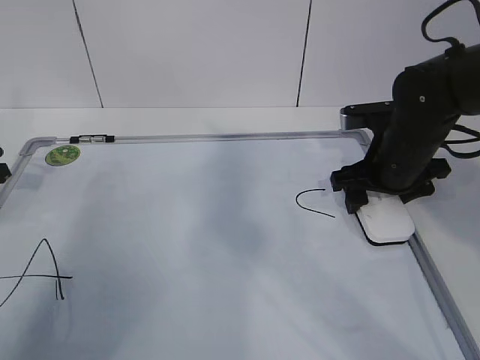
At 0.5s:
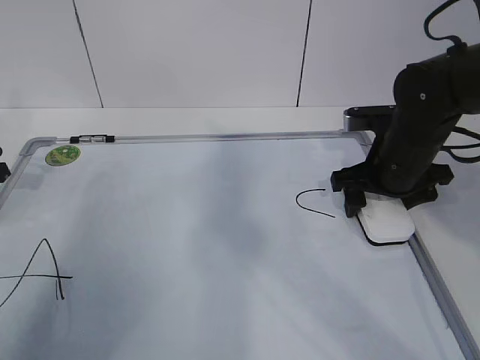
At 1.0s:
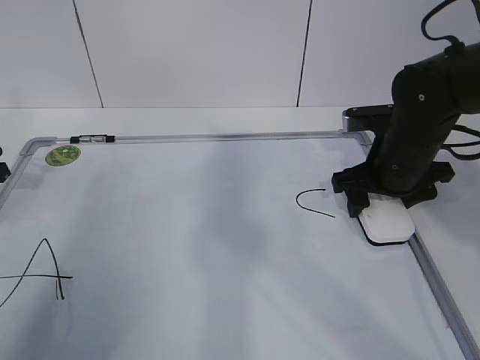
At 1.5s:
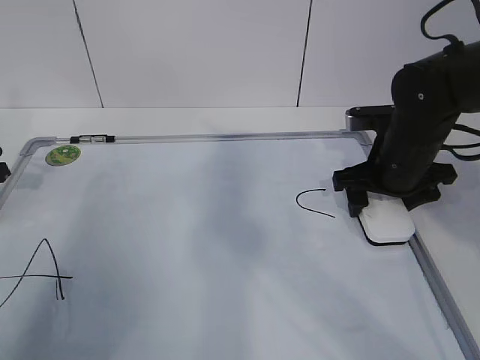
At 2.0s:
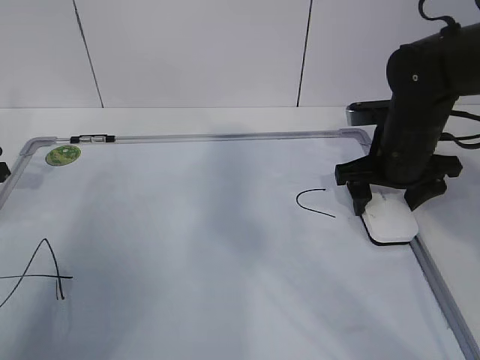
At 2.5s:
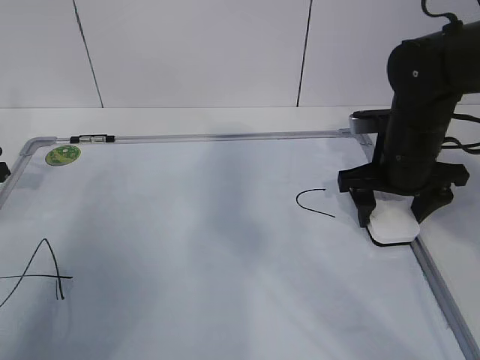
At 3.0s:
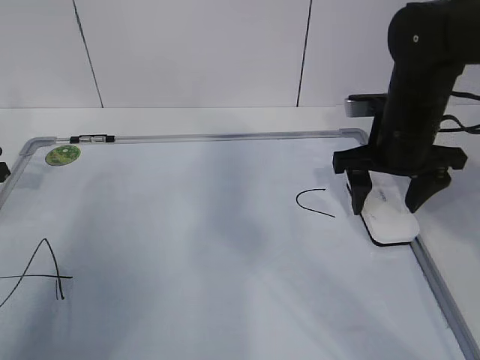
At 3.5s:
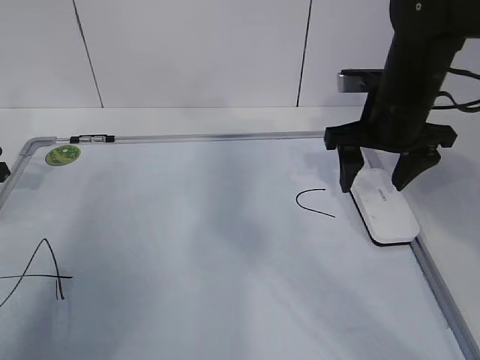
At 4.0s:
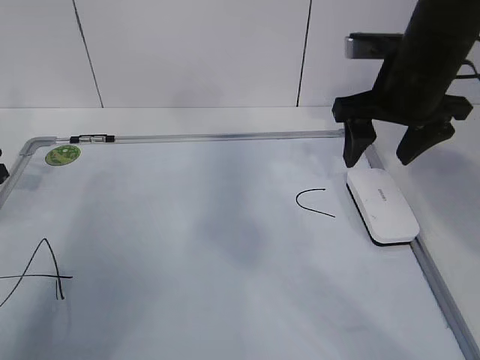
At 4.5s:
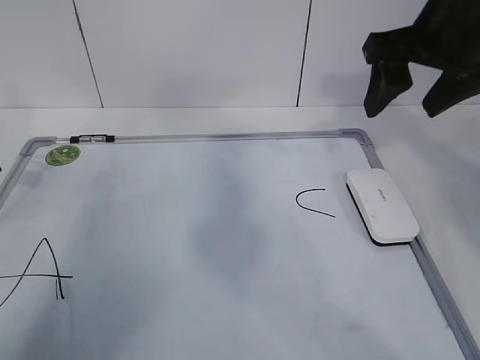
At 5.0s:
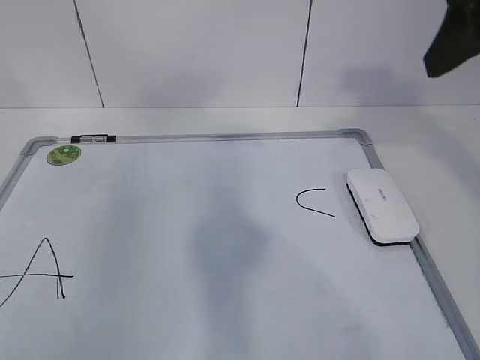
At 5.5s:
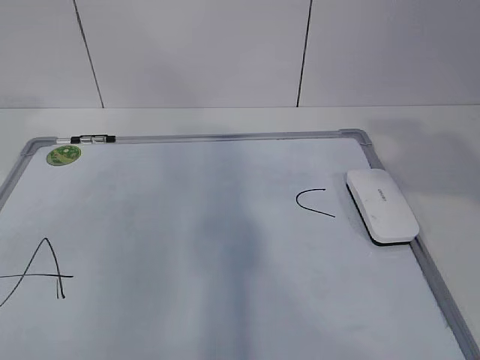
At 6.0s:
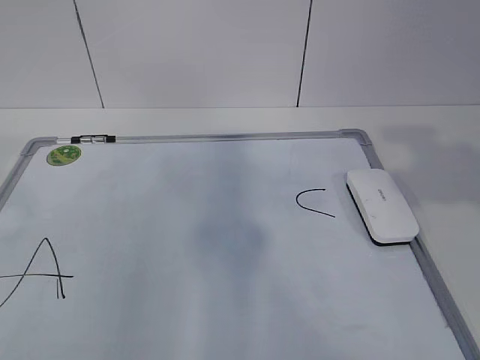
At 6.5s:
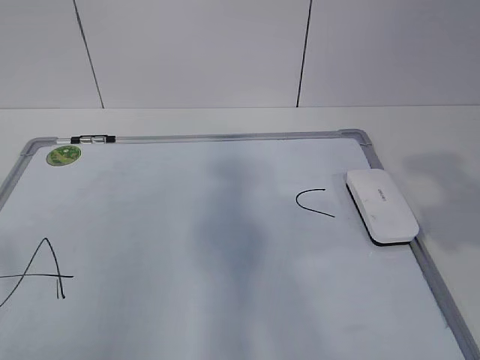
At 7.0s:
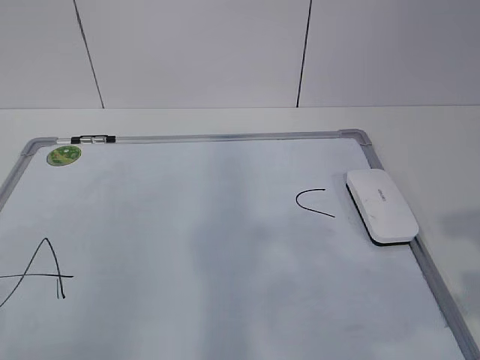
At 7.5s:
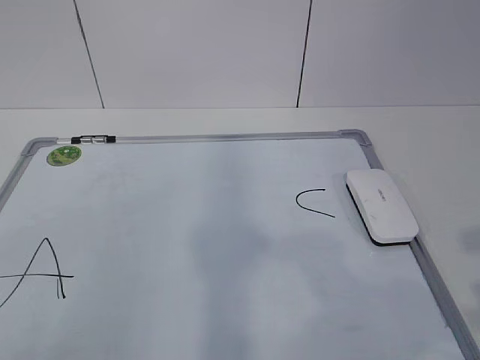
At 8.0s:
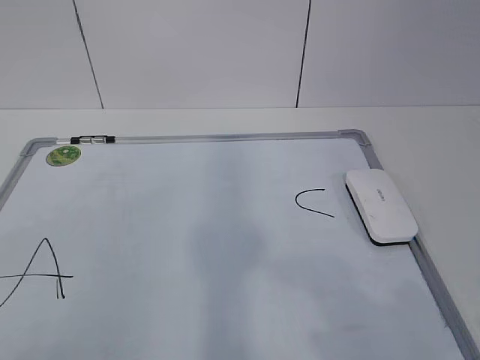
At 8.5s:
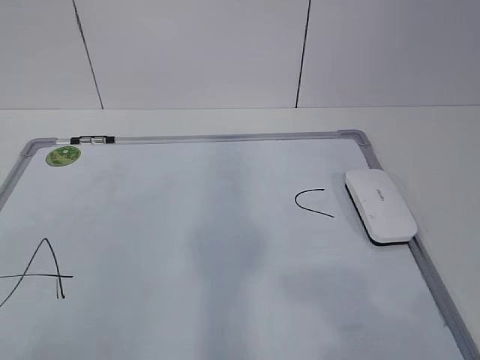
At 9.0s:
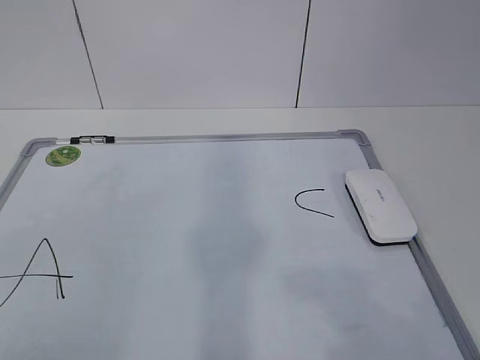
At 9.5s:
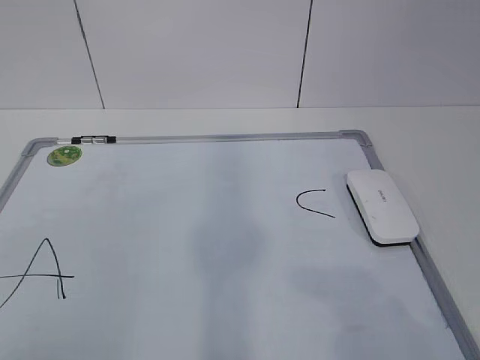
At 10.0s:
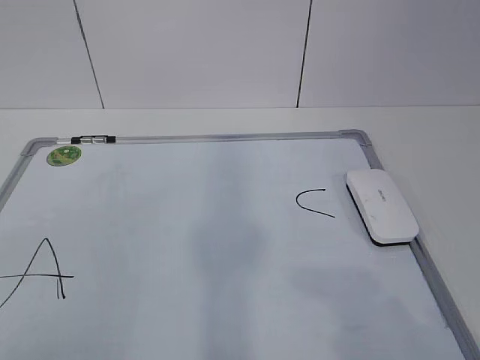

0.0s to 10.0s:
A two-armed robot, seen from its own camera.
Task of the whole recording: pick up the eraser on the blackboard and erase the letter "B".
0.0s to 2.0s: The grippers move only a little.
2.0s to 4.0s: The right gripper is displaced upward by roughly 10 cm.
4.0s to 6.0s: The grippers both shift backward and upward by some 30 cm. The left gripper opens its fingers.
